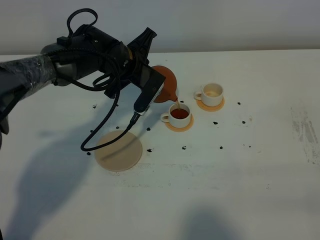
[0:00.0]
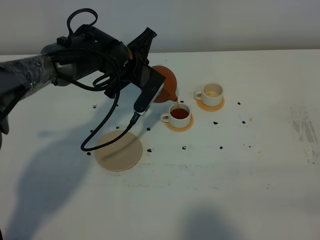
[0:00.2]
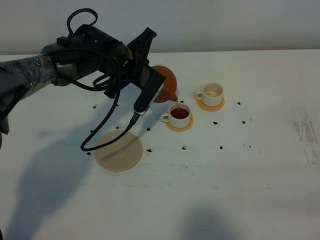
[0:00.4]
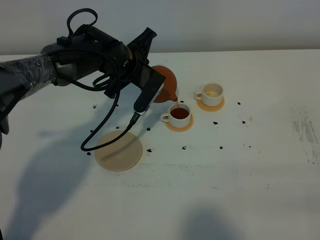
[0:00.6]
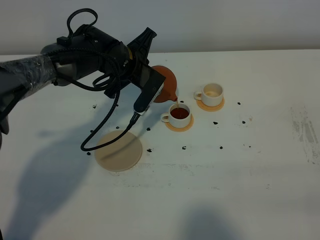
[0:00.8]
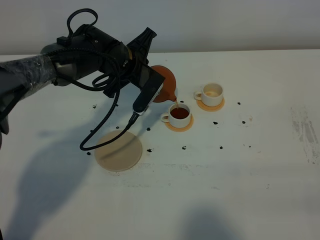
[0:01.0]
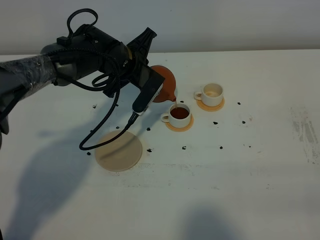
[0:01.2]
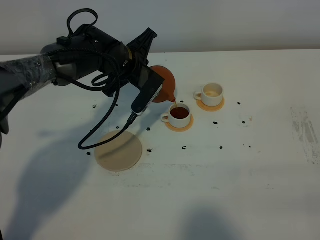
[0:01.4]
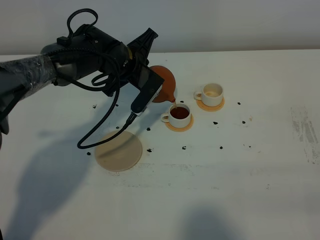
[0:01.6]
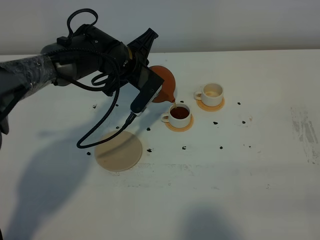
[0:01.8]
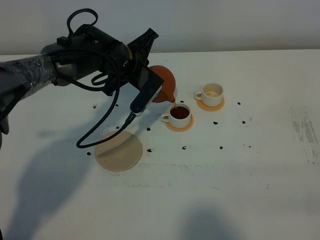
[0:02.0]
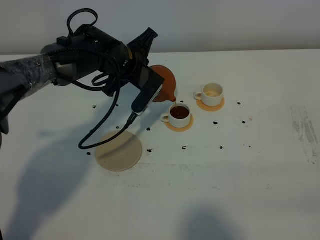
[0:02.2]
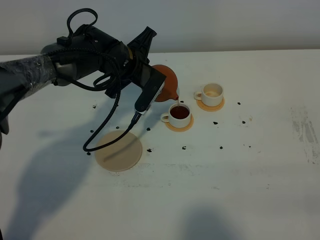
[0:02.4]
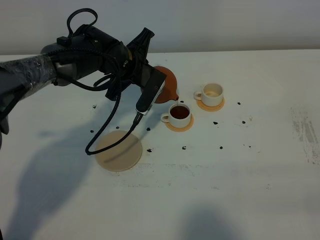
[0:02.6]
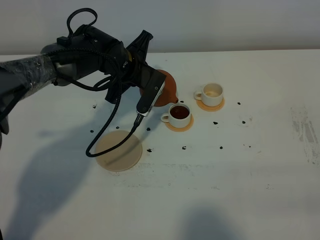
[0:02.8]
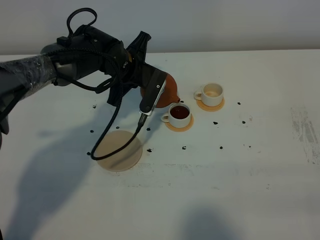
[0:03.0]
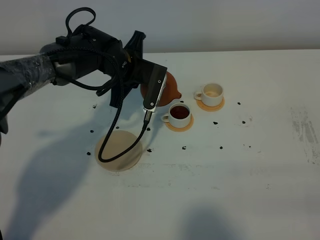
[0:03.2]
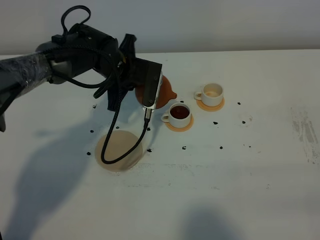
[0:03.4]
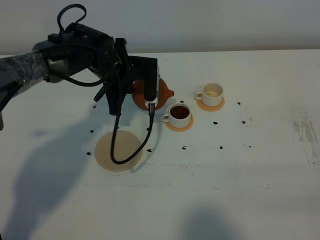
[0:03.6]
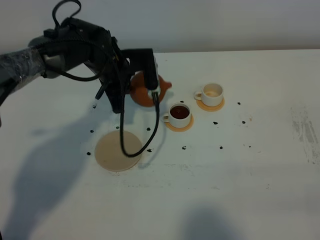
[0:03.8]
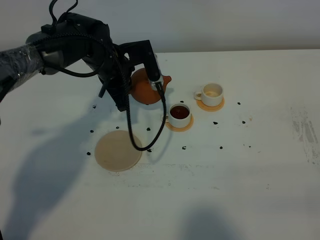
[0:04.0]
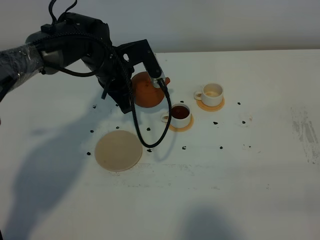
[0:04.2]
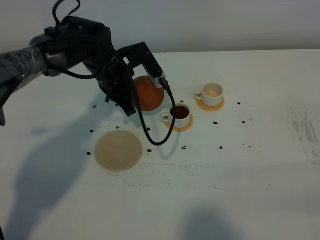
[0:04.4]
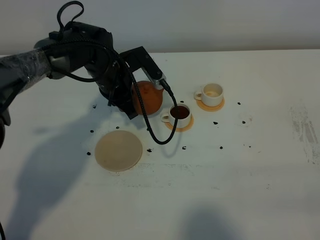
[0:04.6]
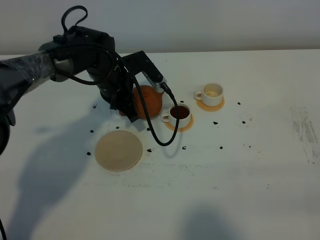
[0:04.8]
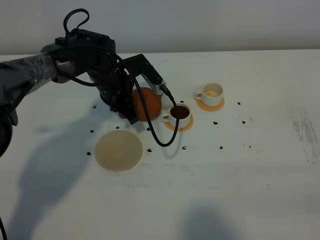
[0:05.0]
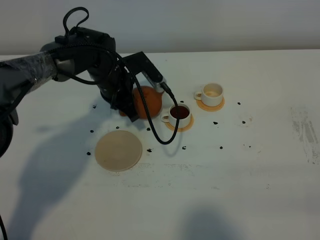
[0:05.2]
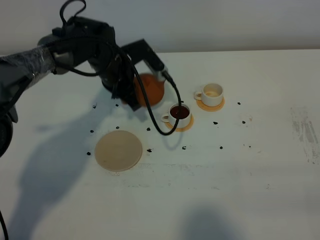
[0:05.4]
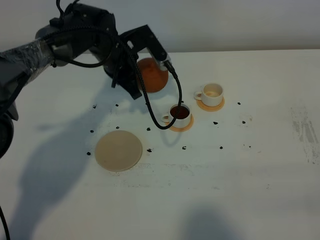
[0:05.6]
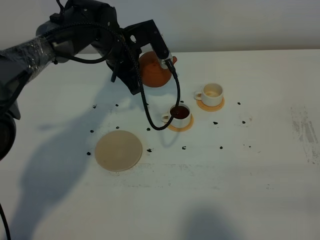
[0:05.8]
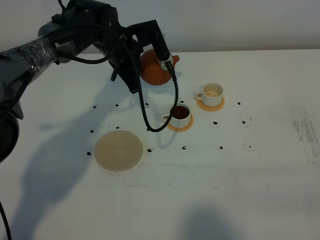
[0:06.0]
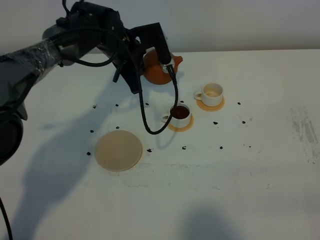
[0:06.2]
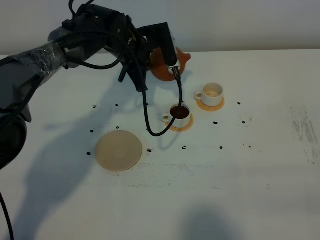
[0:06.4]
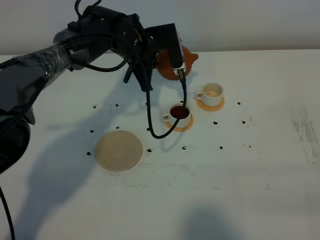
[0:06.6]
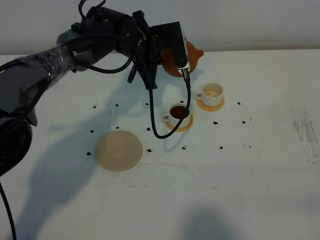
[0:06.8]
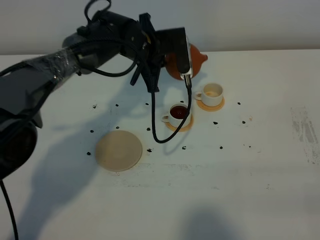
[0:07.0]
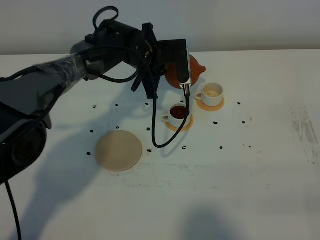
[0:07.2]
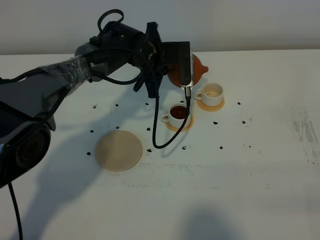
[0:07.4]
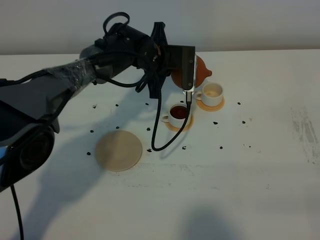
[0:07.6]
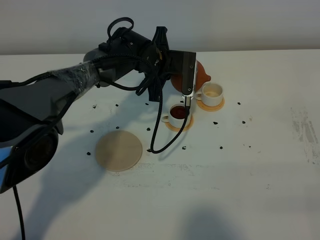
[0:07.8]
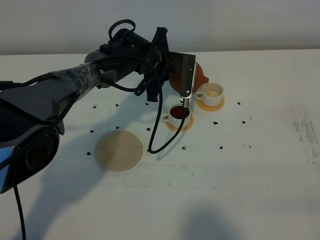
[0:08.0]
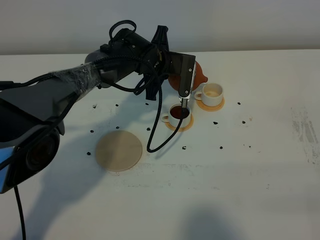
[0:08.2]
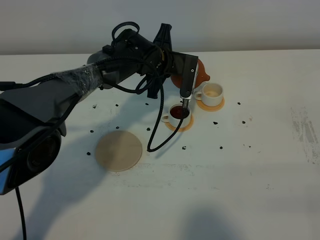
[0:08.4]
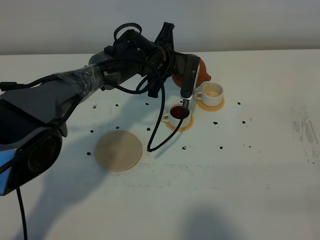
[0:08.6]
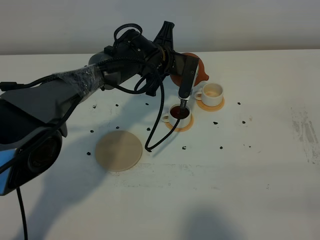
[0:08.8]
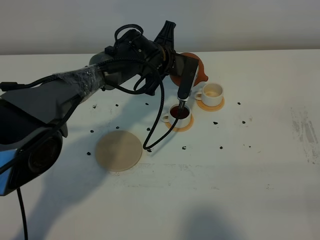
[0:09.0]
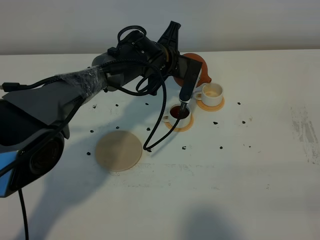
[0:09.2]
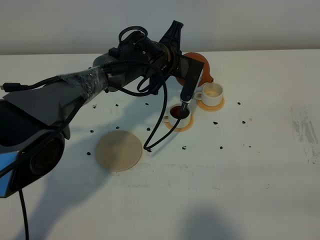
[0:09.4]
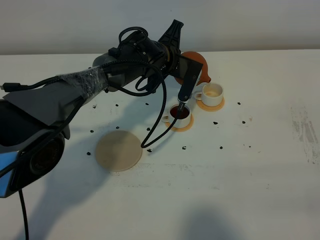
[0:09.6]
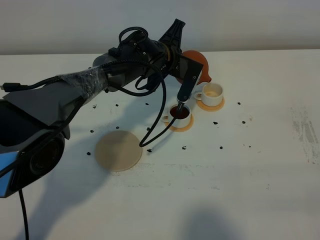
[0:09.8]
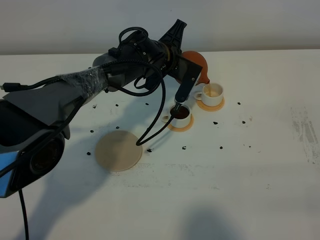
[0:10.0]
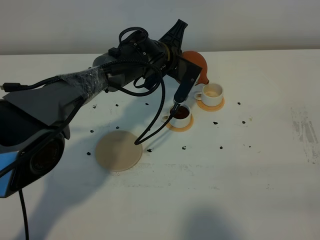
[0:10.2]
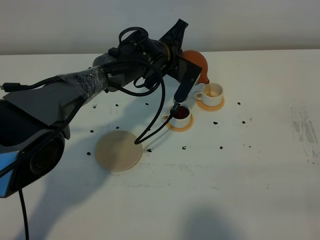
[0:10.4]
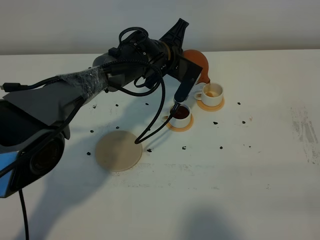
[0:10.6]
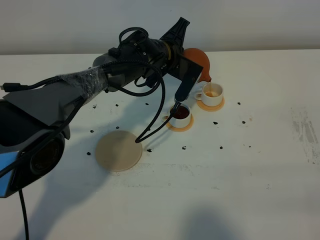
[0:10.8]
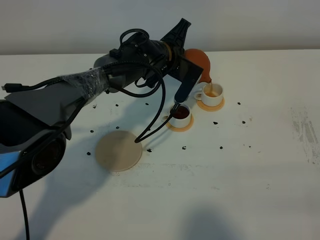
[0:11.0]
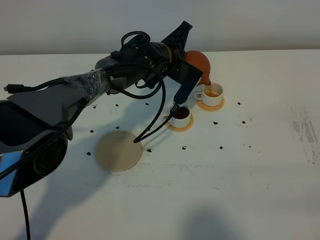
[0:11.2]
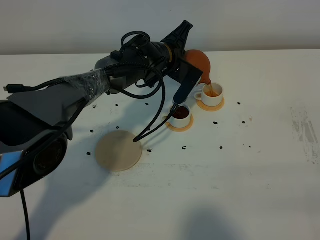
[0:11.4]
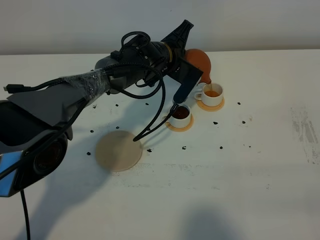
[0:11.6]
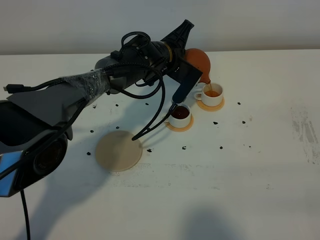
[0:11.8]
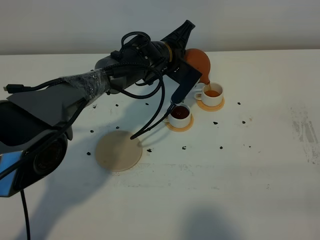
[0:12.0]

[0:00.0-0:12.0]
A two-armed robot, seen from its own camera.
Task of the whole recording: grasp the brown teapot and pour the tea into the two white teacups one by one, put the brown teapot back in its original place.
0:00.0 to 0:01.6: Neither gripper changes place.
0:01.6 to 0:03.0: The grippers stay close to where they were, moving slightly.
0:04.4 to 0:06.0: The grippers make only small movements.
0:06.0 to 0:07.6: The left gripper is displaced to the right by some 5 cm.
0:07.6 to 0:09.0: The grippers move only a little.
0:09.0 to 0:10.4: The grippers make only small movements.
0:10.4 to 0:12.0: The grippers make only small movements.

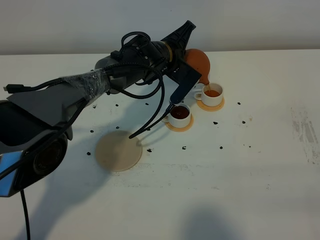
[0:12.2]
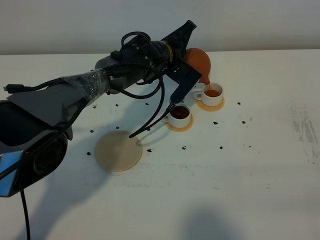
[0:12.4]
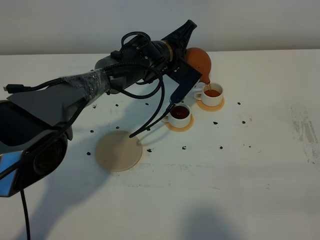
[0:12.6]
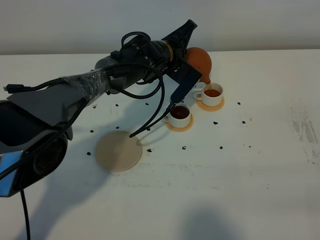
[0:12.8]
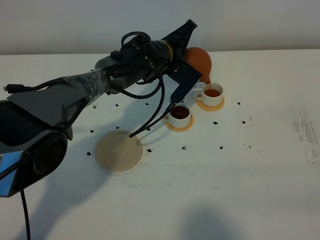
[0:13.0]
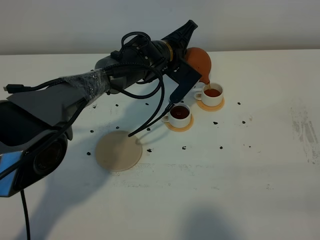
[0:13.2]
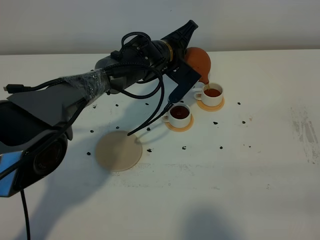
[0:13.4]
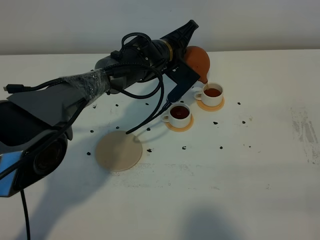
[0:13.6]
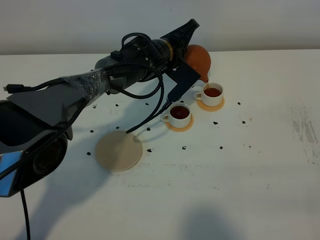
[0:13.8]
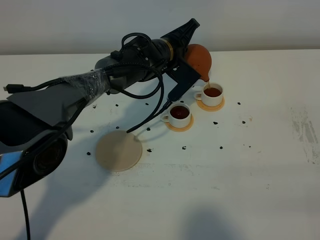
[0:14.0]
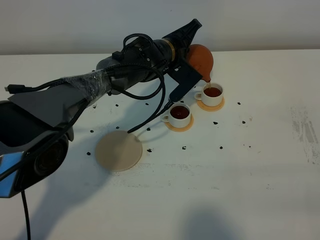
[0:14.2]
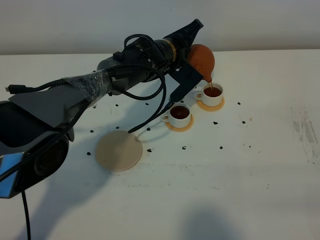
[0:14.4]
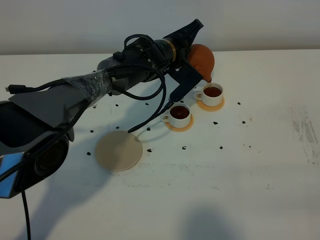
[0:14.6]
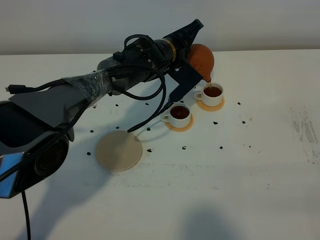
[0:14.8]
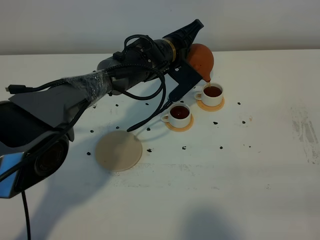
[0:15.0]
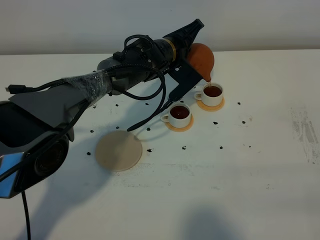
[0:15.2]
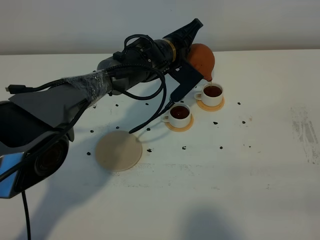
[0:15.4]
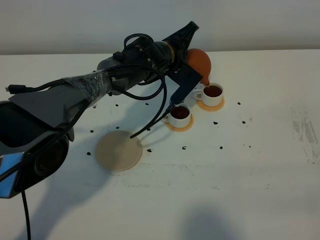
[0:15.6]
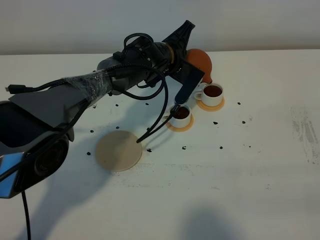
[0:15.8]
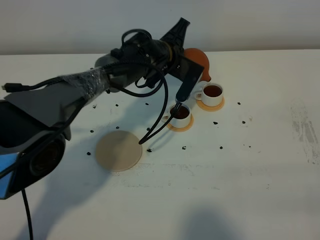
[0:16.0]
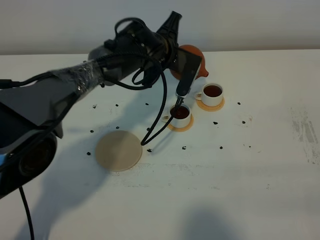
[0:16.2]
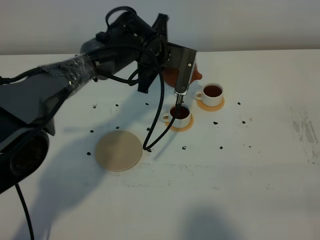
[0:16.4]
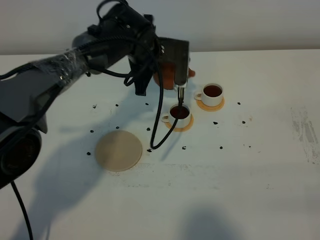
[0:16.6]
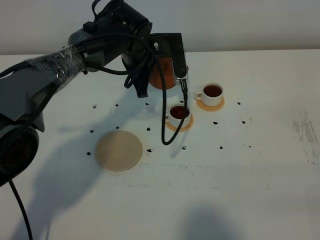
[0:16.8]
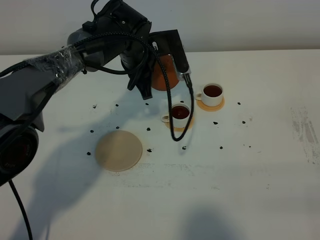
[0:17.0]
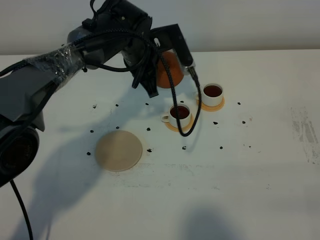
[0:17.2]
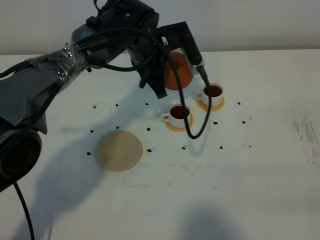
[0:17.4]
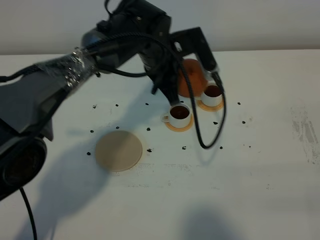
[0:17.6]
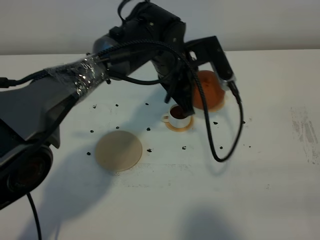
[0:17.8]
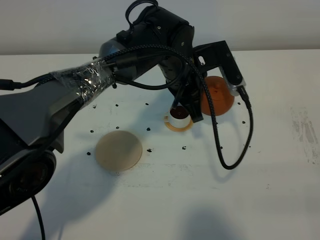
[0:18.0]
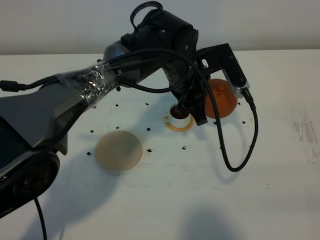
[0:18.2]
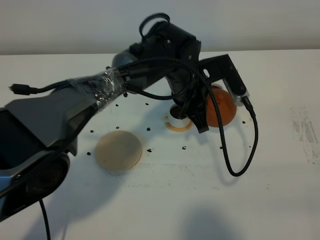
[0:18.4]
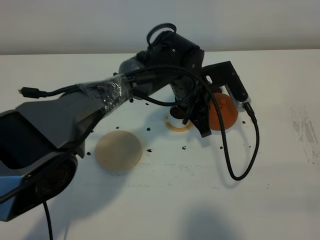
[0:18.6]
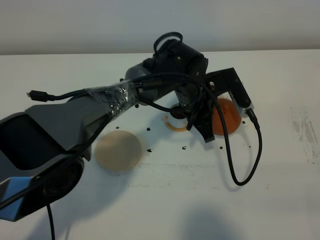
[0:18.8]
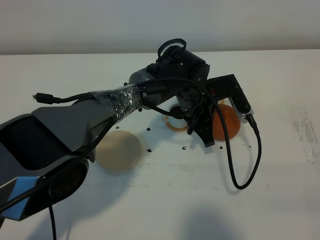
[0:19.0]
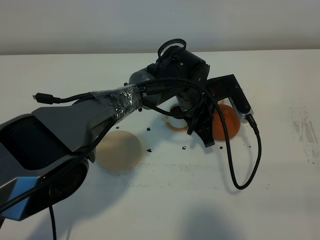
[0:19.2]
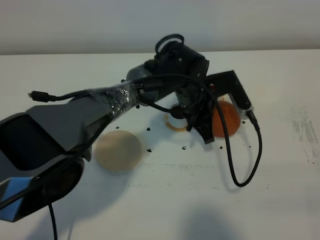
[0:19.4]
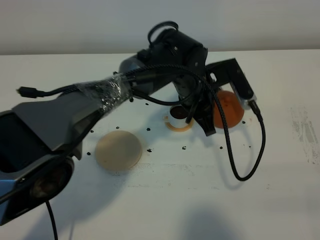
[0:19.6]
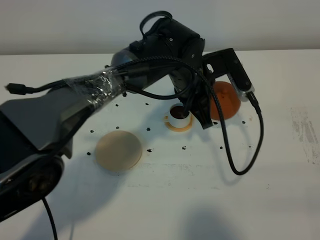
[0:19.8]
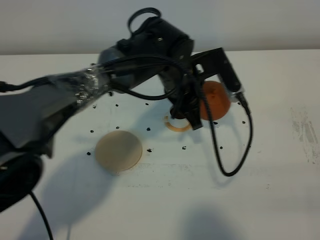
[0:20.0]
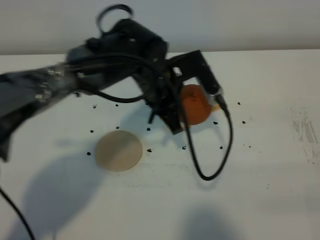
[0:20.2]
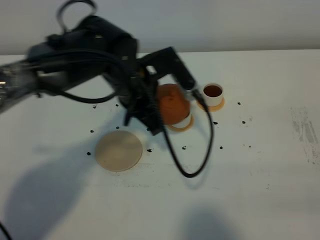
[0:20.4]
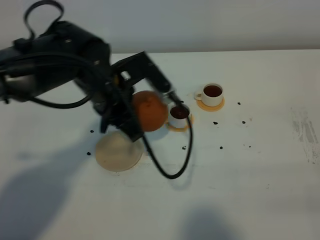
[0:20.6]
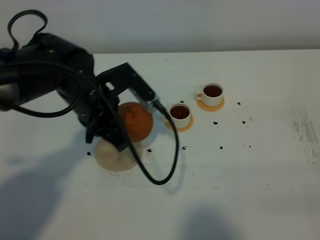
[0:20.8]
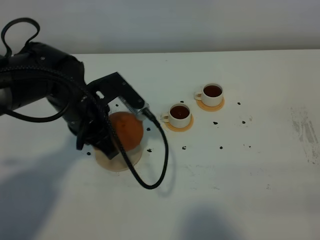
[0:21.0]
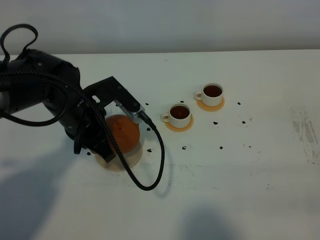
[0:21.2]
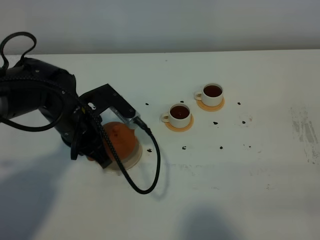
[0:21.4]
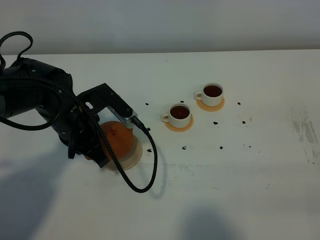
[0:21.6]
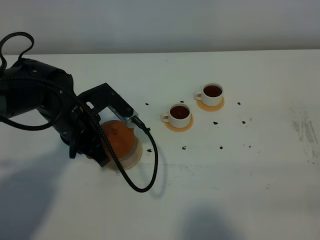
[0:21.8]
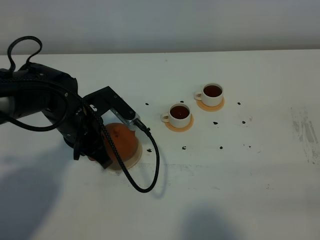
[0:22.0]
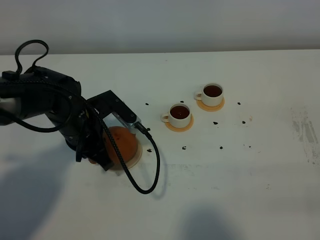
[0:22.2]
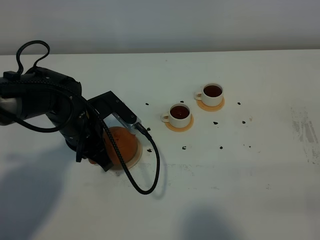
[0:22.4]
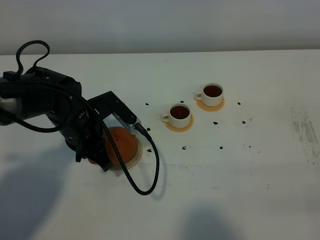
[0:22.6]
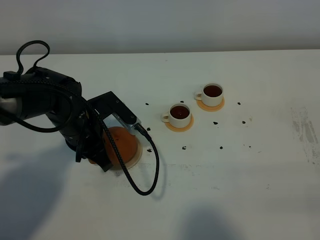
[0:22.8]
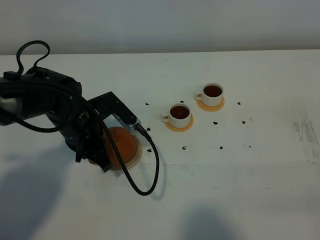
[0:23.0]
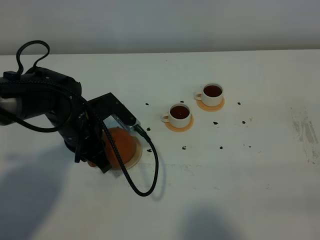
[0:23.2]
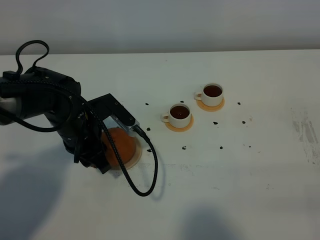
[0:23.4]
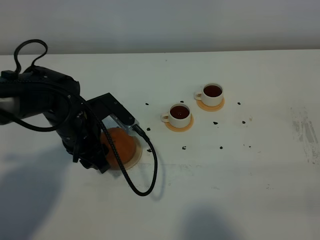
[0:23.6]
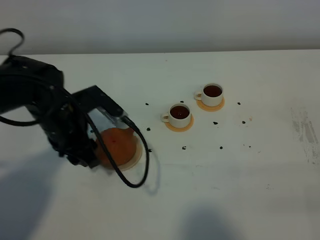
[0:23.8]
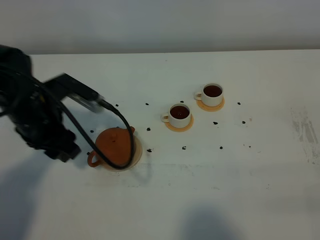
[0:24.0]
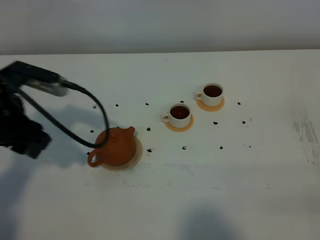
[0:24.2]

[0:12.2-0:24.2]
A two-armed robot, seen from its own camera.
Task of the whole recording: grasp the brown teapot and pour the tea into the two white teacups one by one, put the brown teapot back in its original place.
Step, 0:12.2 to 0:16.2: Pour tea into the teacup with the left gripper.
0:12.2 to 0:13.8: The grippers make only small movements.
0:13.8 to 0:15.2: Both grippers stay put.
0:15.2 to 0:16.6: The left gripper moves approximately 5 cm.
0:16.6 to 0:18.2: The left gripper travels to the right and backward by roughly 10 cm.
0:19.8 to 0:21.2: The left gripper shifts about 20 cm to the left.
0:21.2 to 0:22.6: The grippers stay close to where they were, moving slightly.
0:22.6 to 0:24.2: The left gripper goes some 15 cm upward and to the left, and opens.
